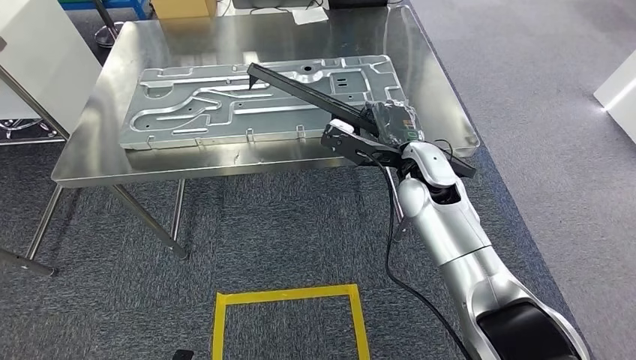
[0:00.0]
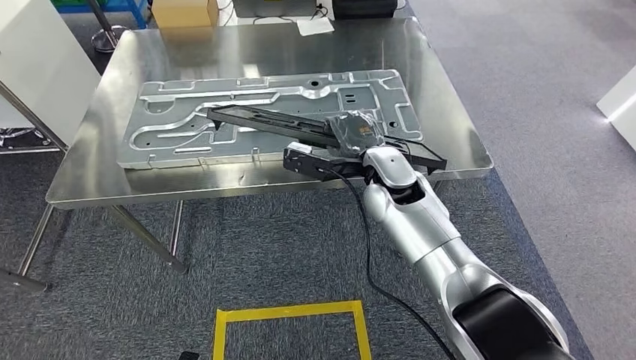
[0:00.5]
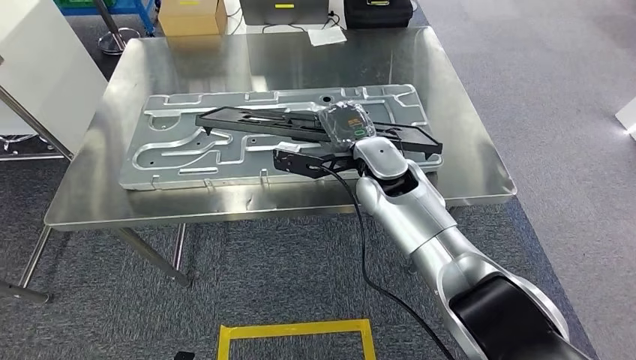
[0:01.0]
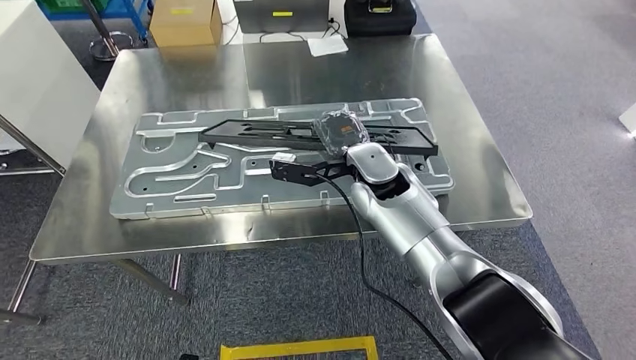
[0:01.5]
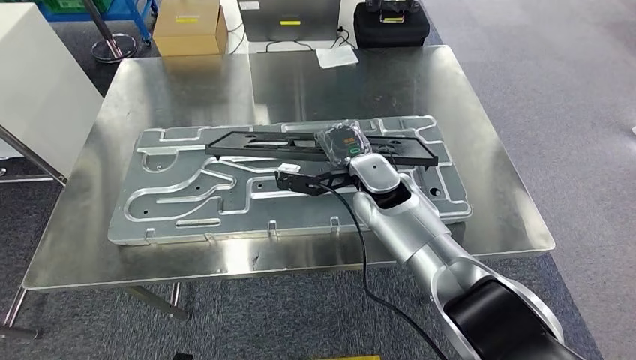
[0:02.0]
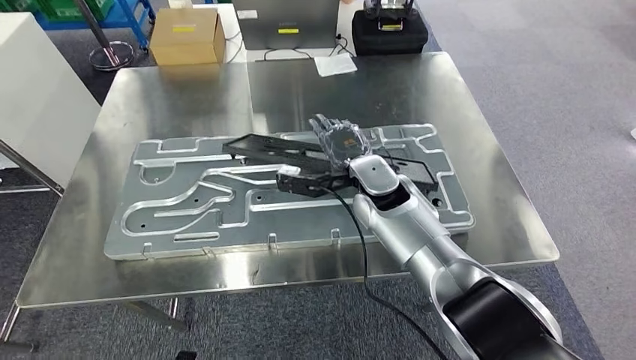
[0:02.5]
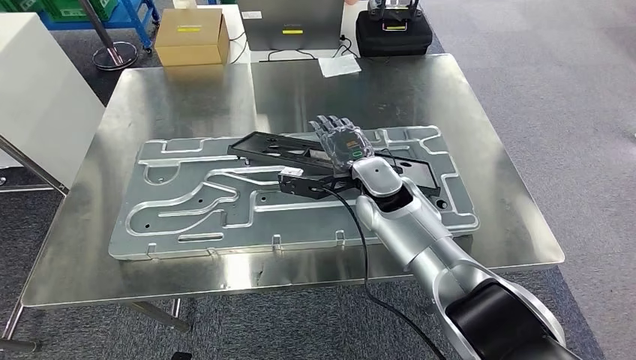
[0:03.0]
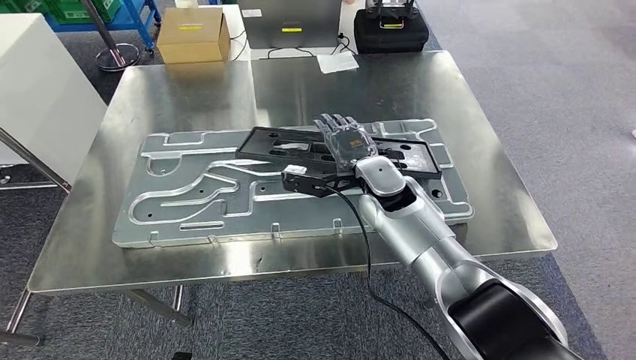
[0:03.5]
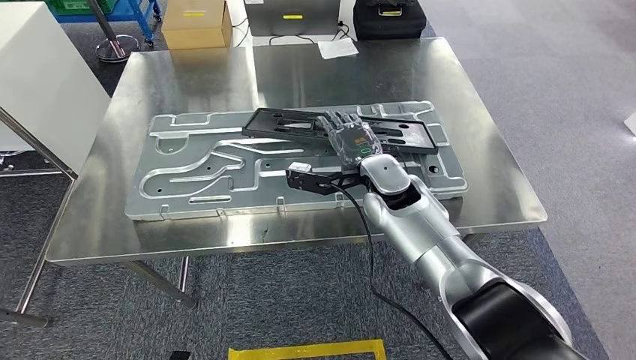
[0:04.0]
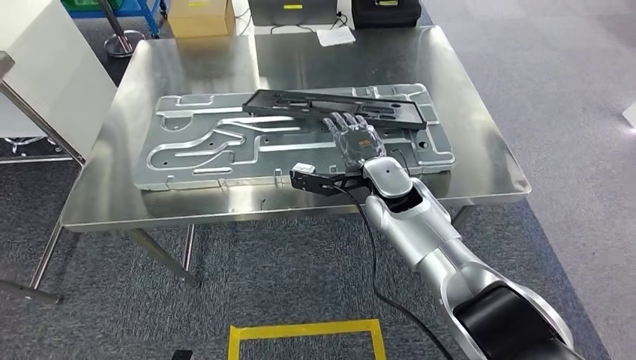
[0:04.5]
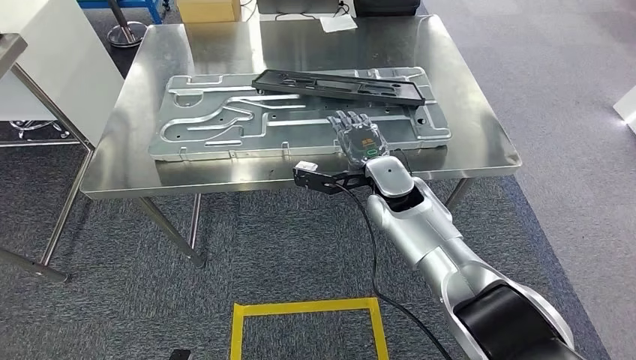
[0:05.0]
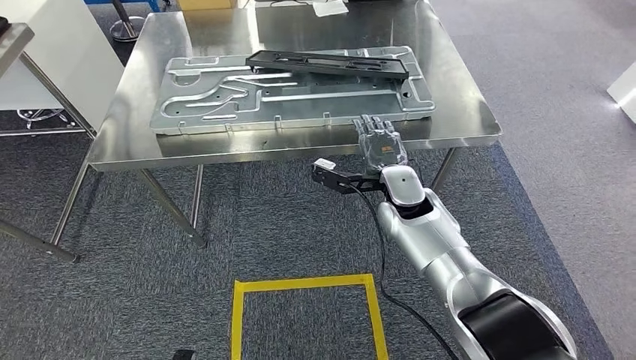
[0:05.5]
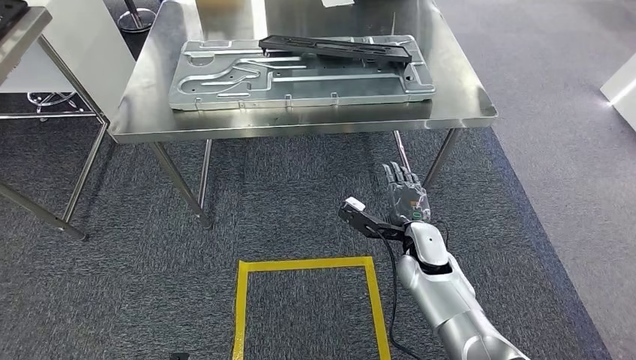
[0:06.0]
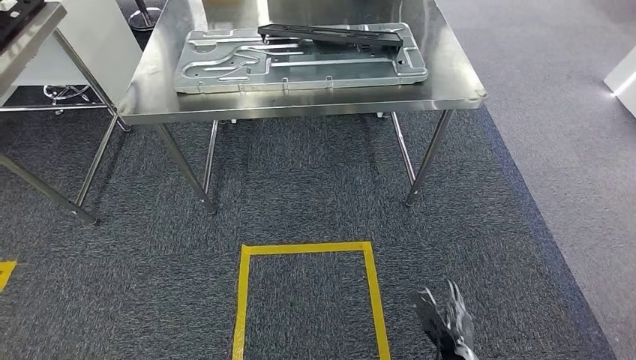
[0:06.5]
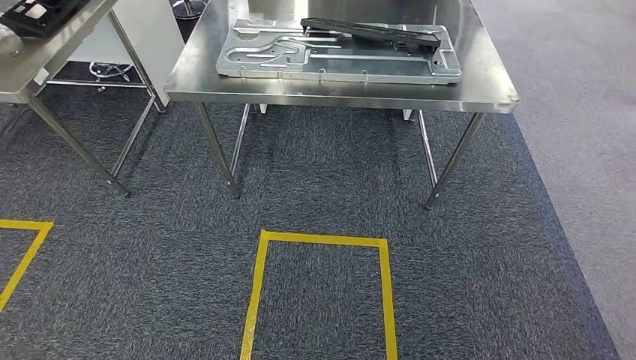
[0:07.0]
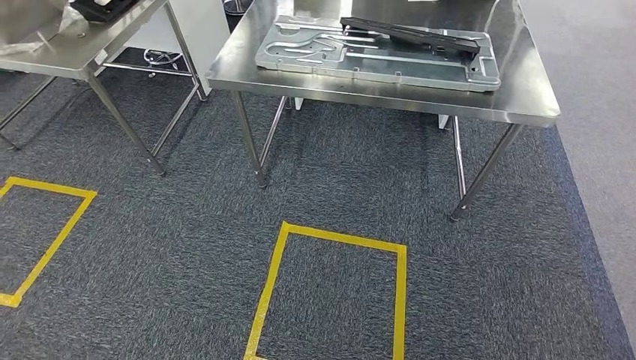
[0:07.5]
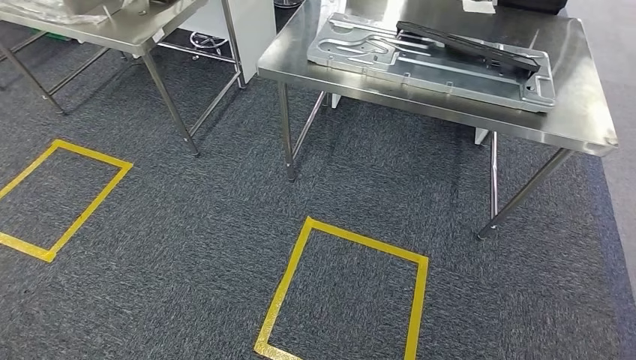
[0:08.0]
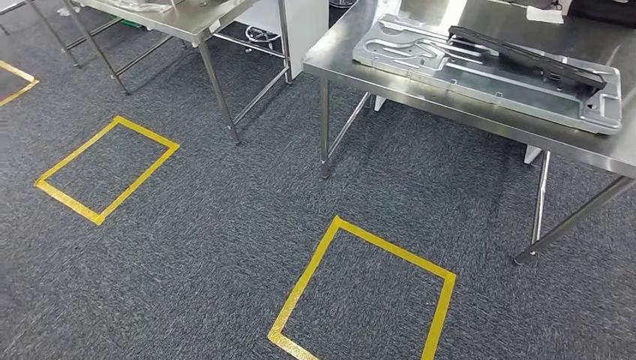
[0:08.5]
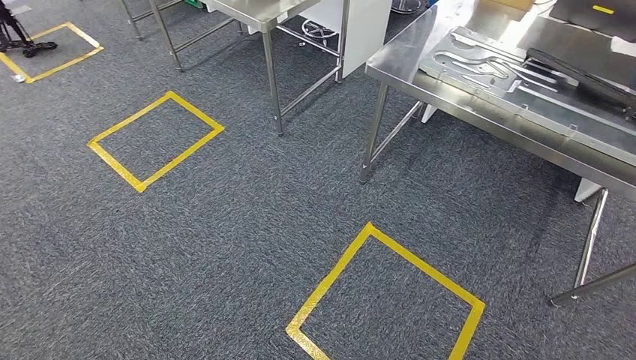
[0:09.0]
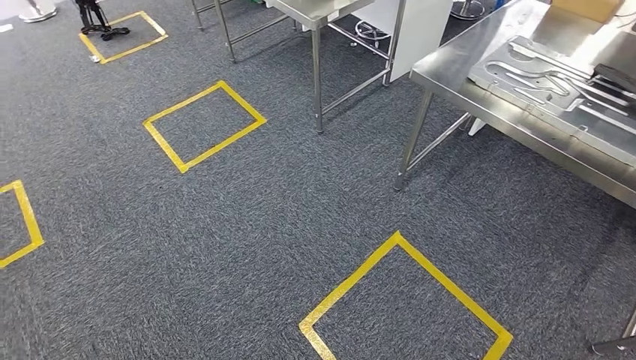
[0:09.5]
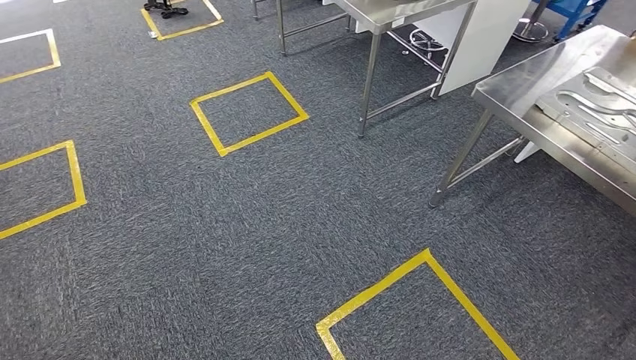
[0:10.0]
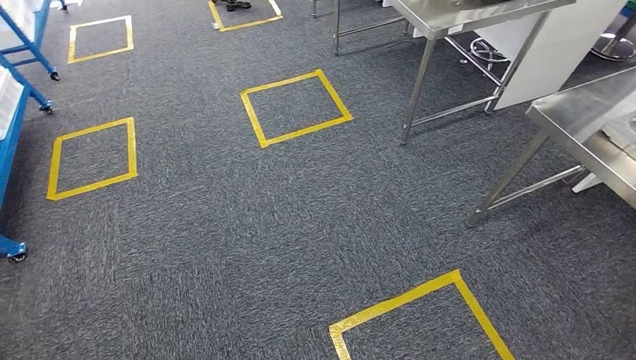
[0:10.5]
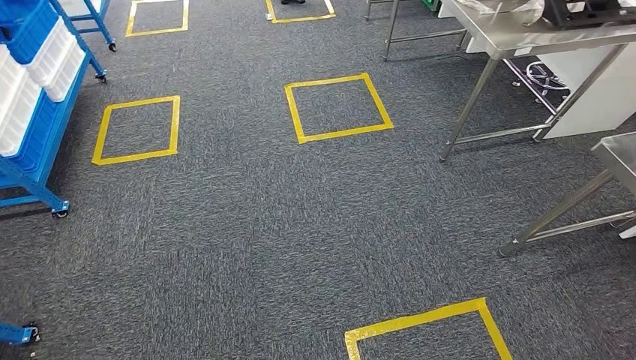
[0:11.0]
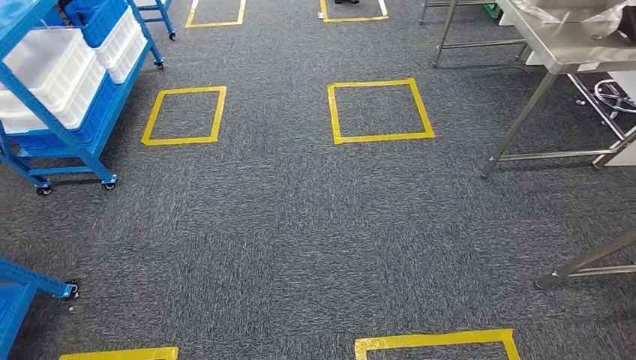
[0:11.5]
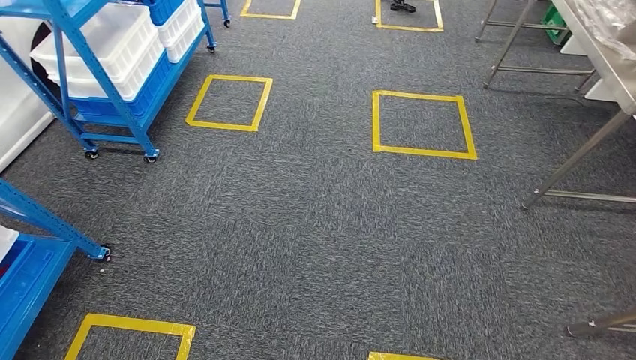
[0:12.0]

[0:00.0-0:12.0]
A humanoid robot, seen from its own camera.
Step, 0:00.0 to 0:05.5: Insert the large material into the corresponding slot on the workbench.

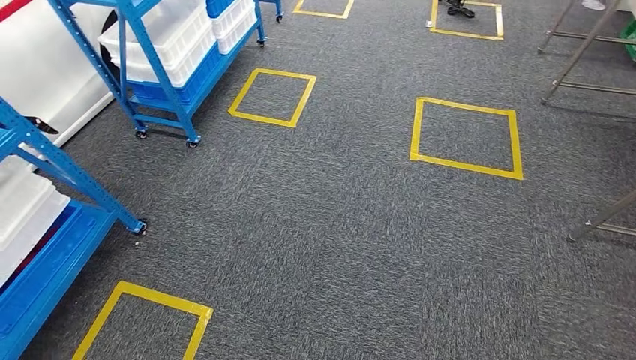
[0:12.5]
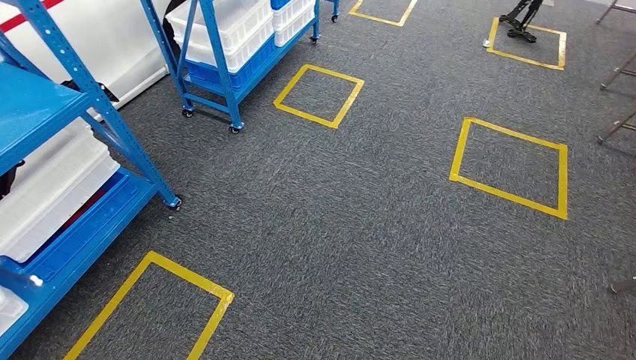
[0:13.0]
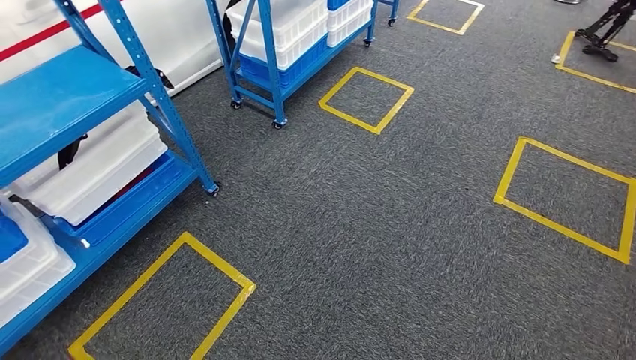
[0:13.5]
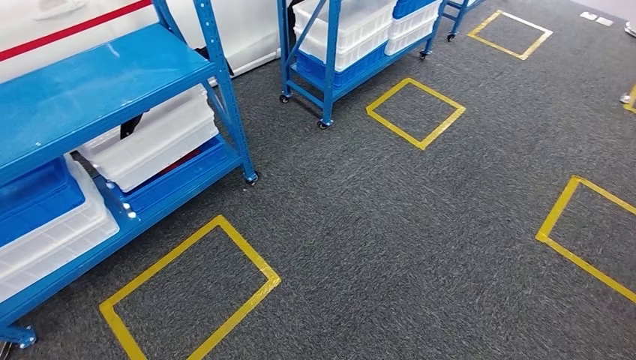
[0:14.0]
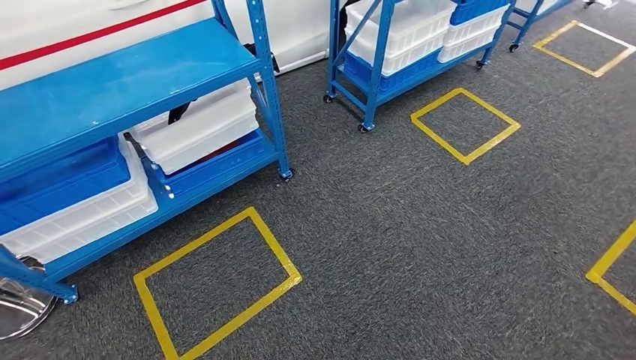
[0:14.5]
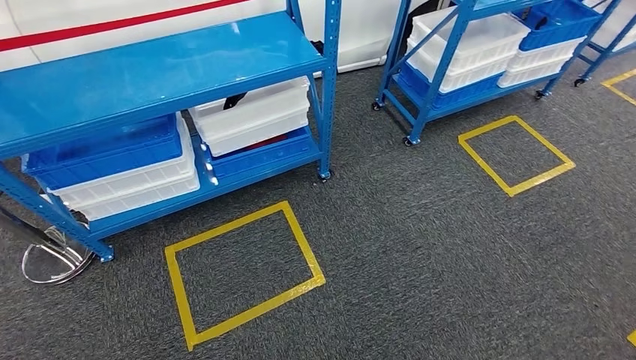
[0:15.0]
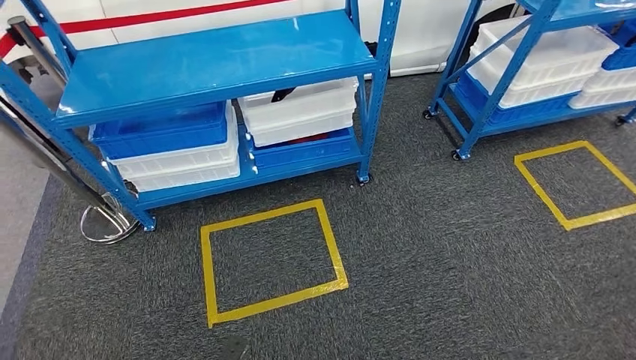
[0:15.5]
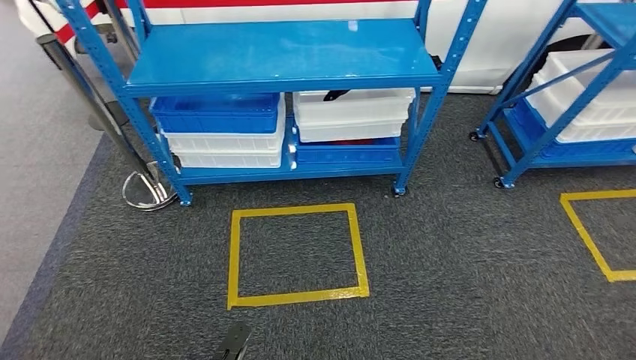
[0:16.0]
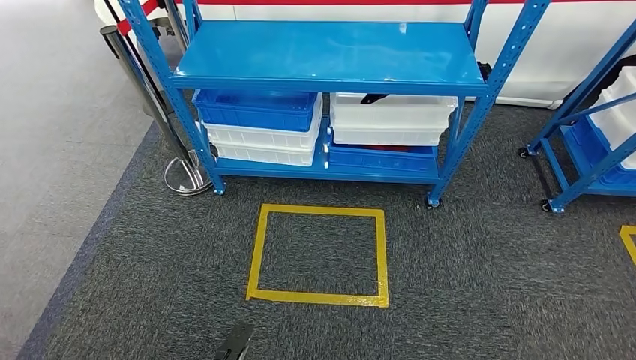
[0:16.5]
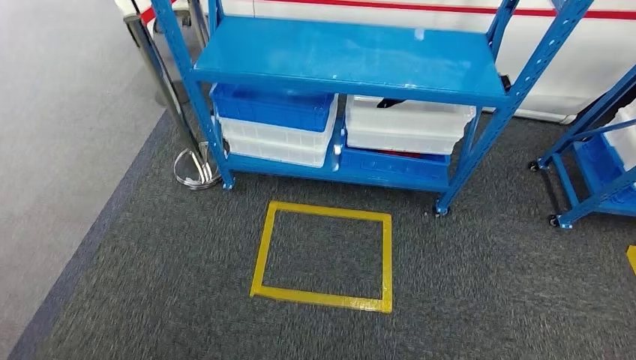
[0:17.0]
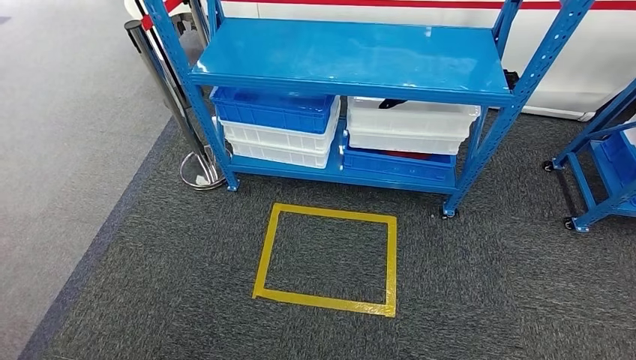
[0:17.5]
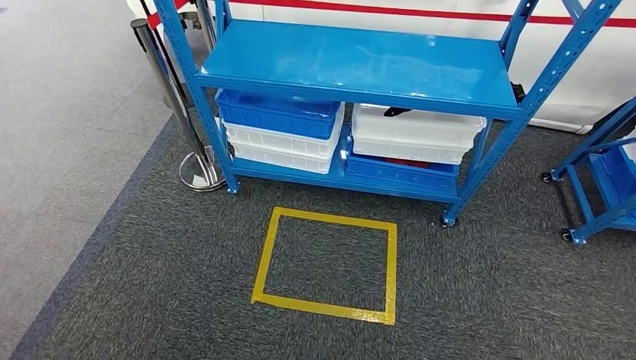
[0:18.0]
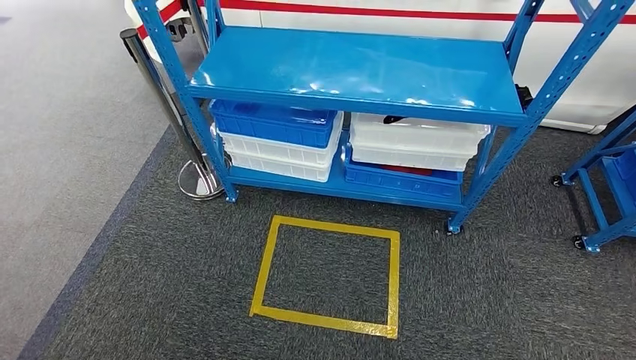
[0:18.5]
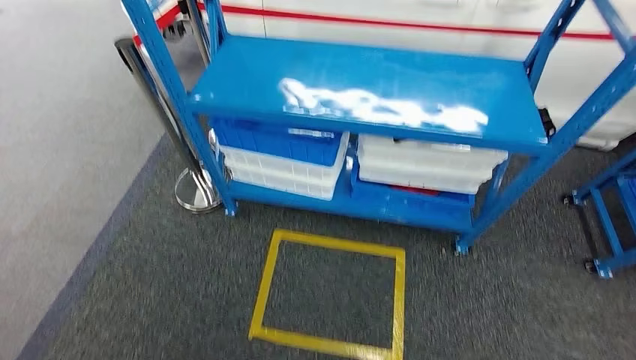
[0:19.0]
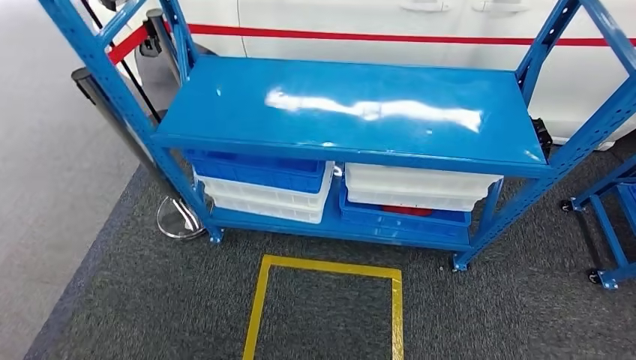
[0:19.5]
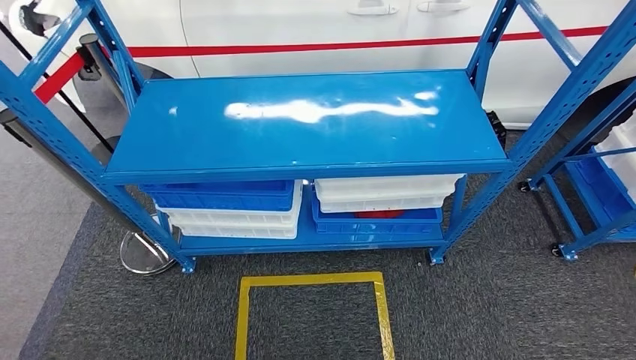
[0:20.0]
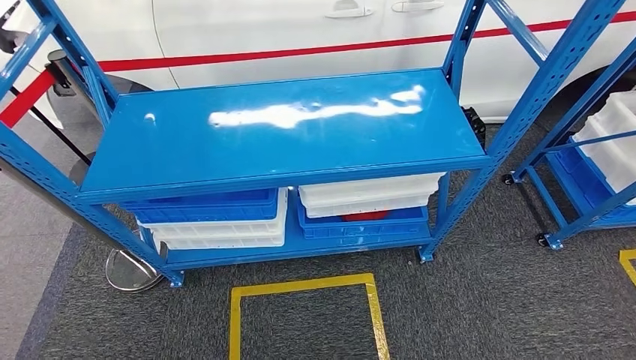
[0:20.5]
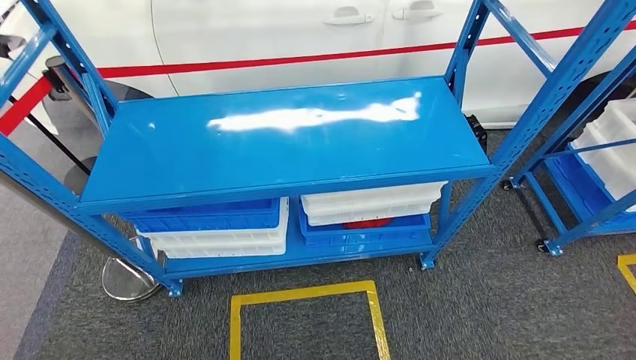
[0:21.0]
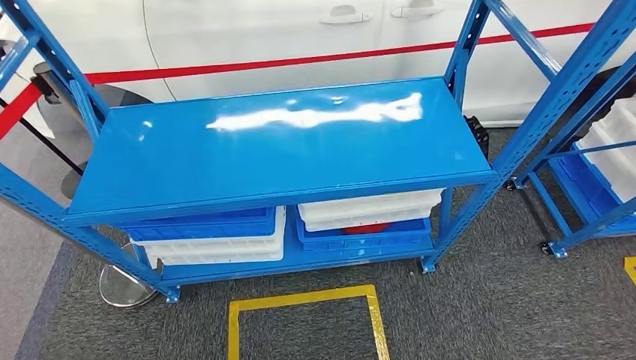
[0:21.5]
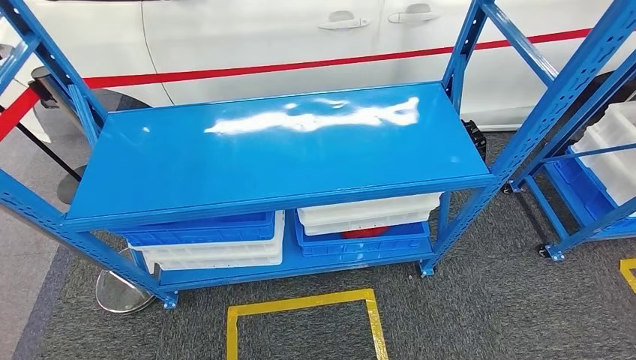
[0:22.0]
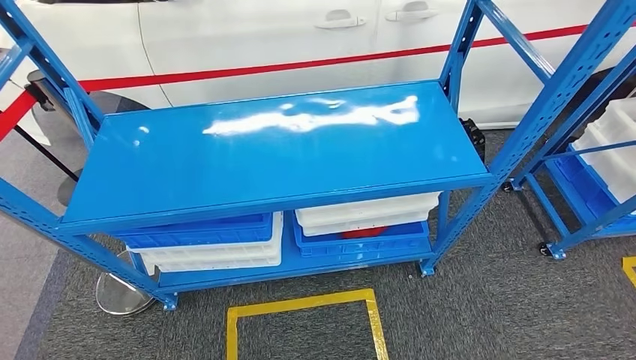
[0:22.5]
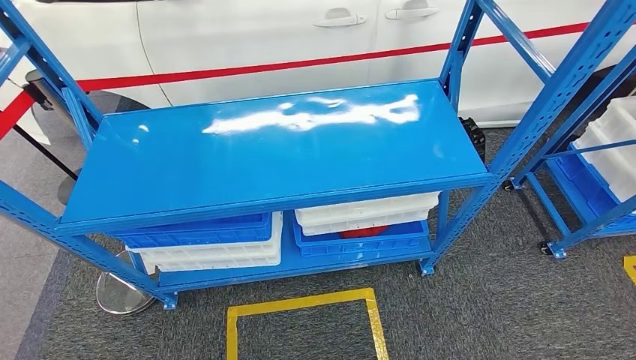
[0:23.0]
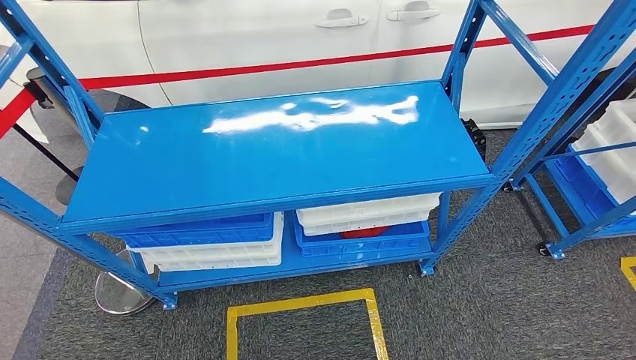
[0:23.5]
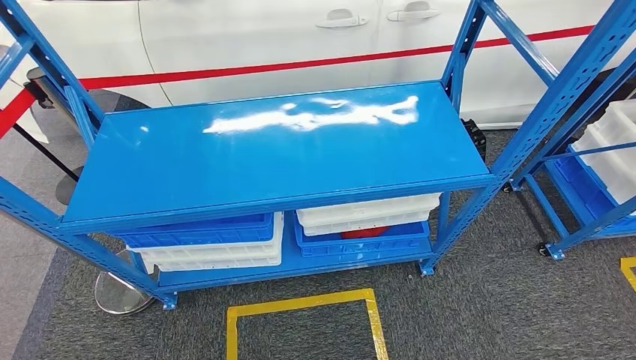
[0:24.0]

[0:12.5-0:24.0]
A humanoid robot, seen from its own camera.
Step, 0:12.5 to 0:24.0: Return to the initial position at the shelf.
0:22.0 to 0:24.0: The hands make only small movements.
